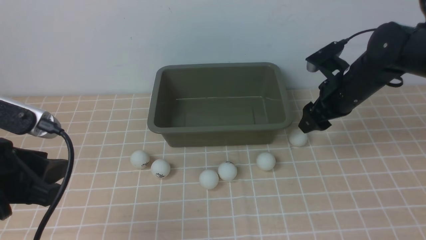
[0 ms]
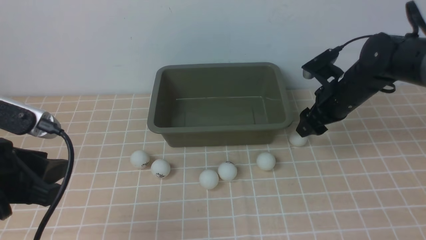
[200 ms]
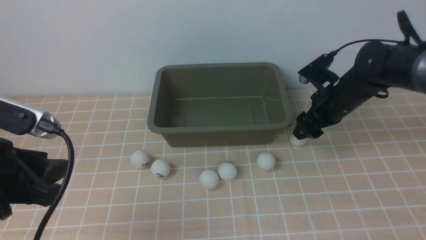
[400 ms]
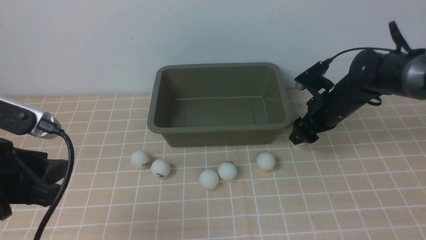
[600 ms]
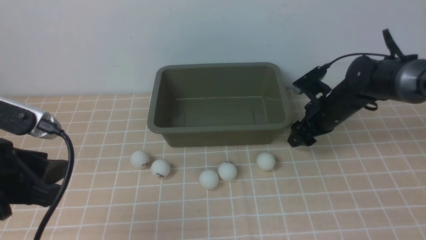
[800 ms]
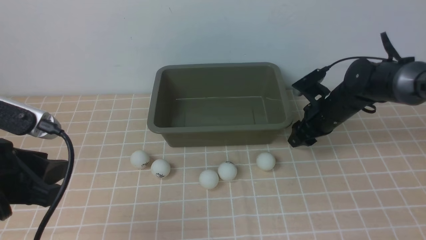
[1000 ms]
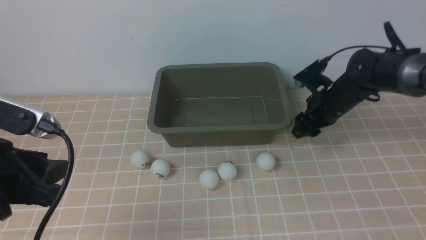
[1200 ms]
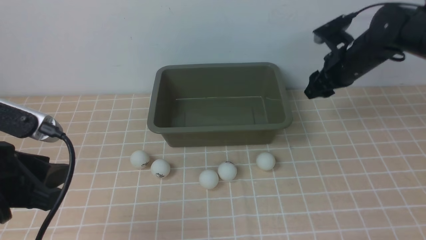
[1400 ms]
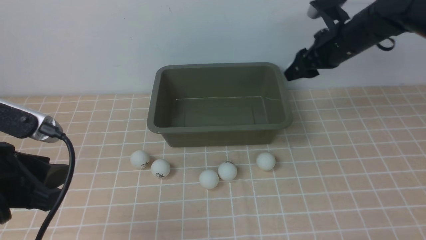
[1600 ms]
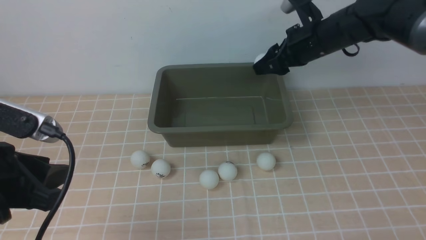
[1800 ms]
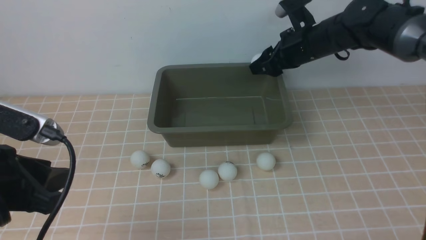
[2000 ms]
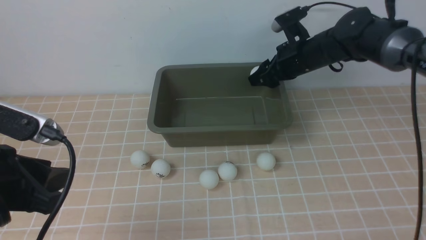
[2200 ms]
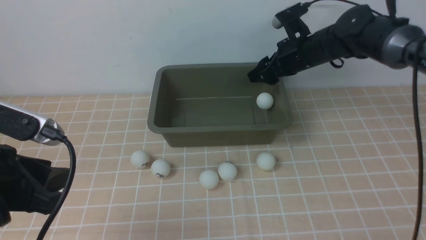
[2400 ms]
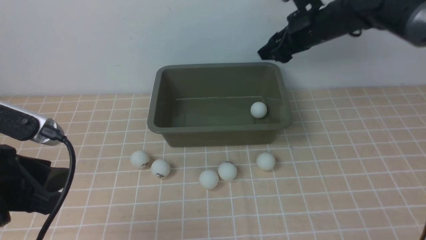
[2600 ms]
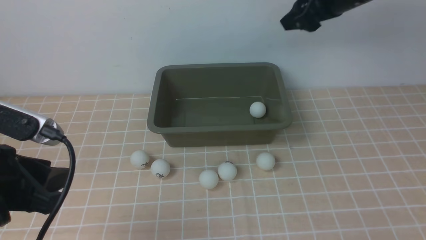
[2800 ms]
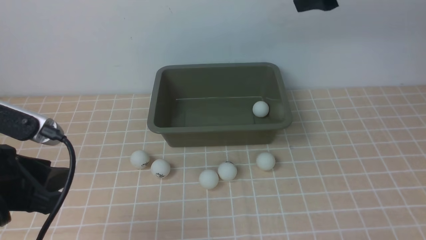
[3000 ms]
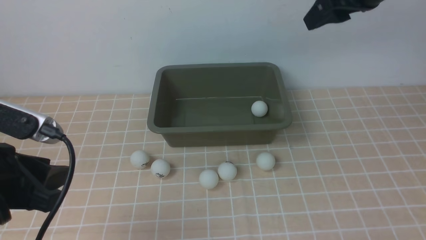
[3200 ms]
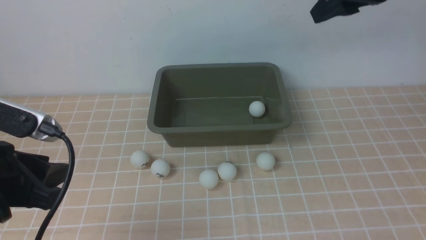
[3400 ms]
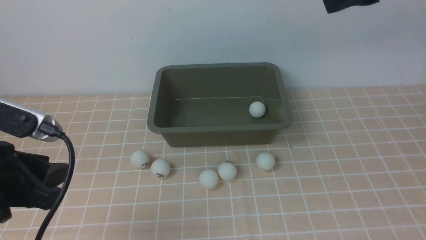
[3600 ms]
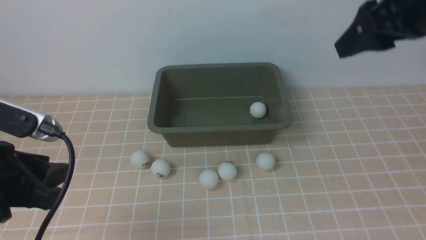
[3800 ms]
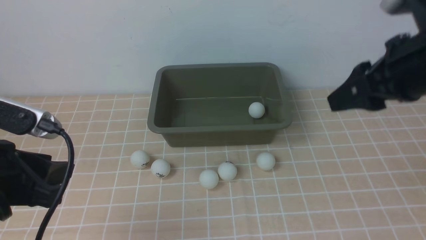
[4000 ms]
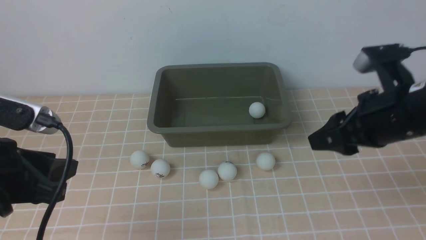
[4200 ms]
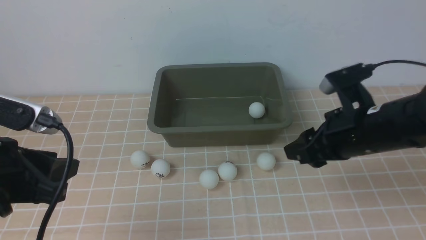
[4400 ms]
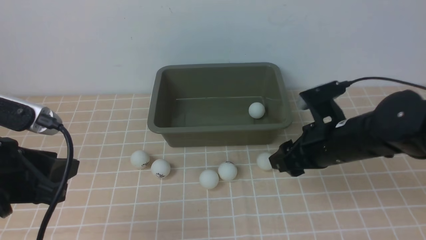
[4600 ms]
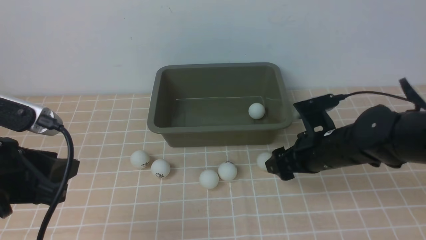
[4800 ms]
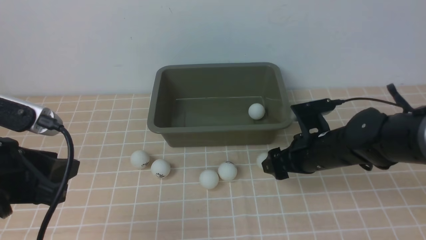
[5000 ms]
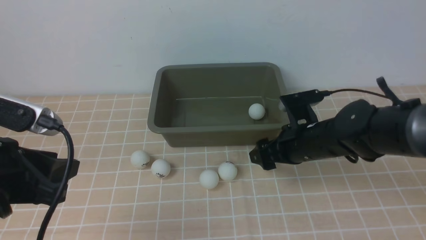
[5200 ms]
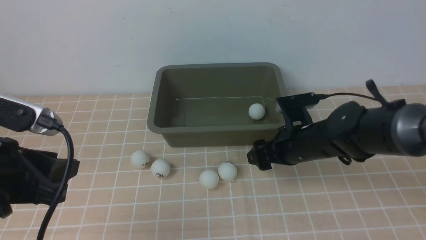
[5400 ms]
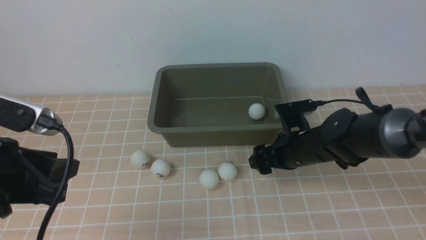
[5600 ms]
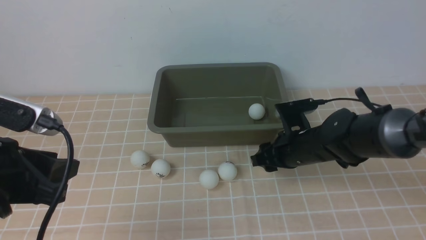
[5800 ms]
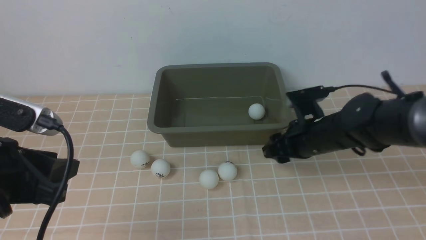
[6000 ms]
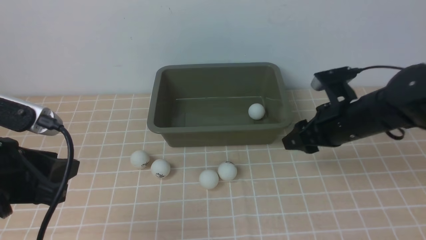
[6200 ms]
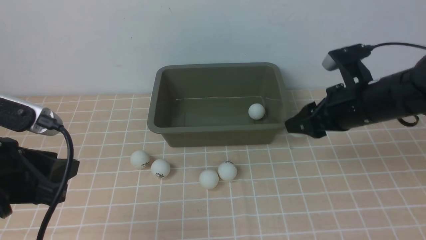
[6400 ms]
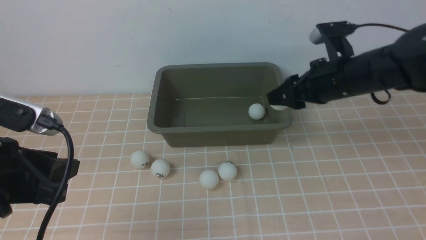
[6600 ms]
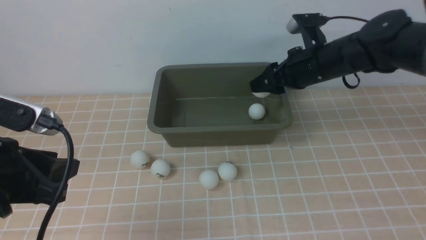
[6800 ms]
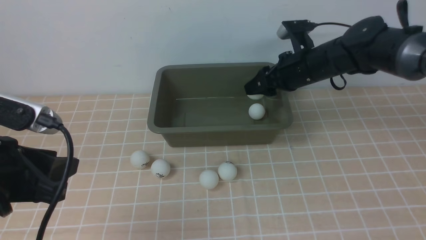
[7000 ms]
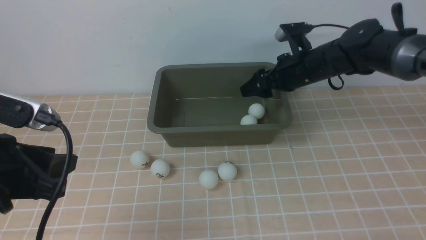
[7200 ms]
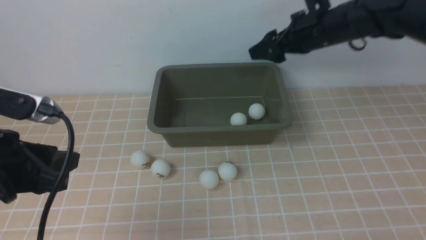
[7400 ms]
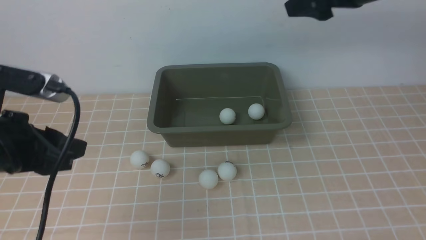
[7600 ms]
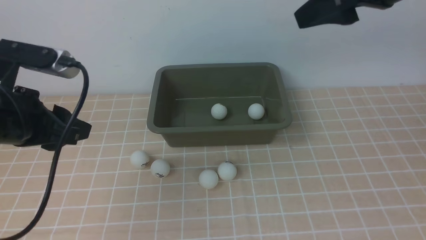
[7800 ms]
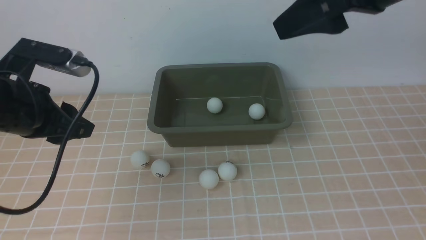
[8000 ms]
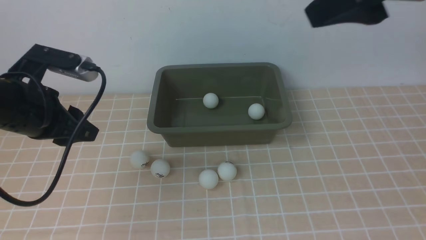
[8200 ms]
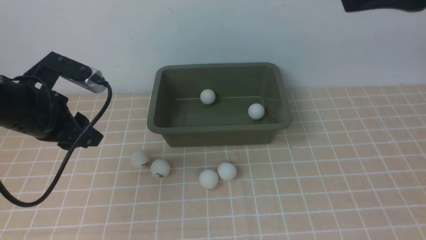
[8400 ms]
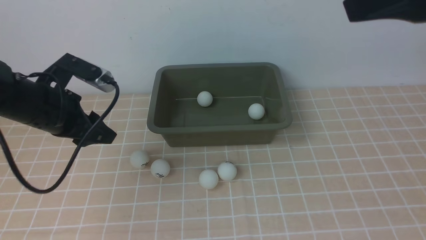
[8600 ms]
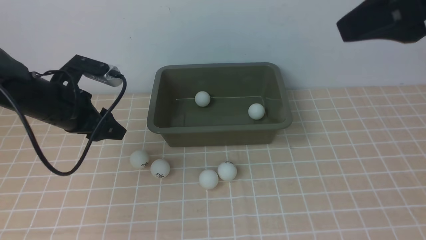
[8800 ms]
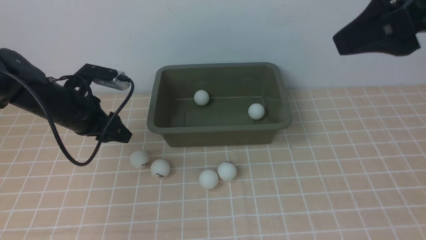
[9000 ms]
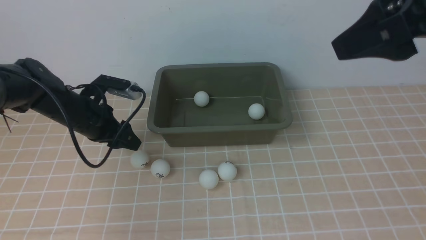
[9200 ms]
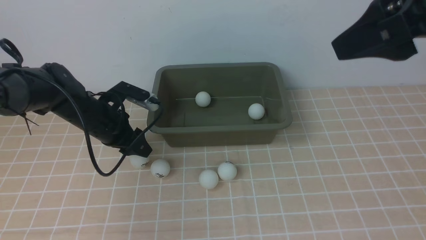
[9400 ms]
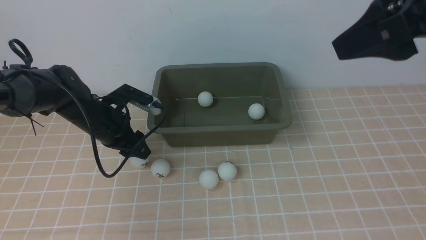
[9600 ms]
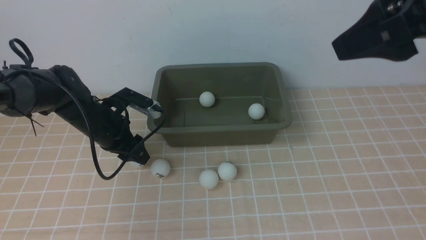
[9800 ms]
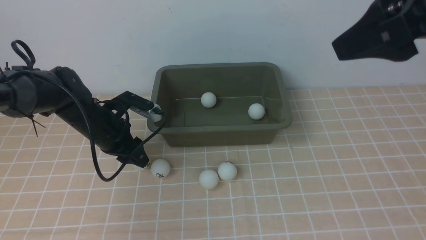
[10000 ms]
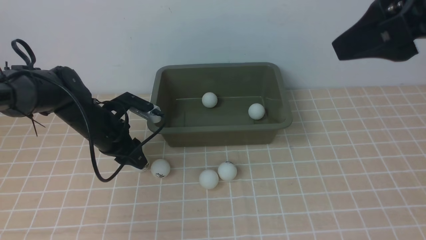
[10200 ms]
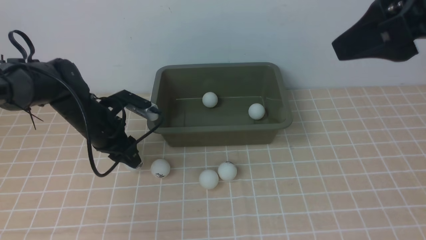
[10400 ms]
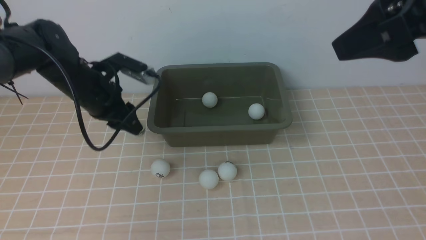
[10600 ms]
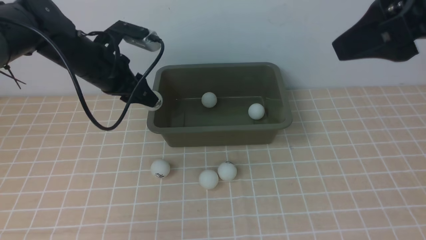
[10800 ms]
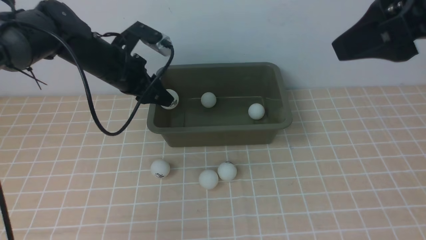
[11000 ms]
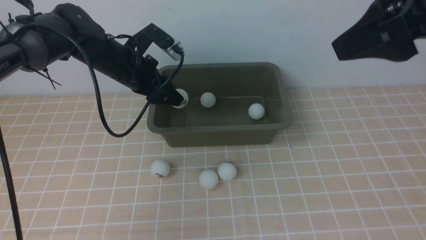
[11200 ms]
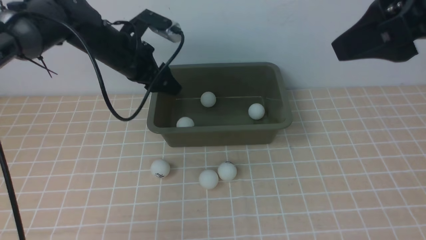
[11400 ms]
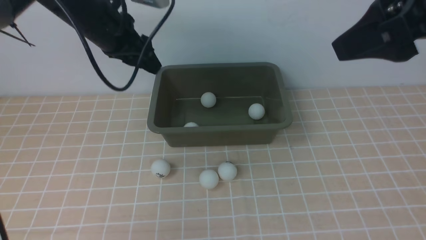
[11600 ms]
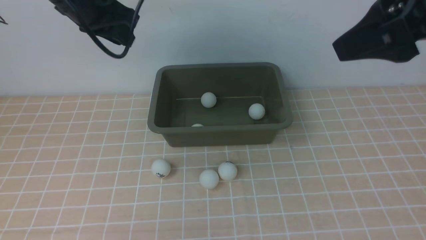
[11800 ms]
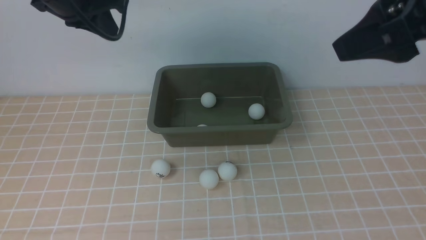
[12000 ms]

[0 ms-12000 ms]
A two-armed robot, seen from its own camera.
Step, 1600 ms to 2400 ms: use the right arm to put the table tennis ball into the box.
Step, 2800 ms to 6000 ms: use the right arm to clamp the table tennis ball closest to it.
Step, 6400 ms to 7400 ms: use the right arm to put the table tennis ball into the box.
Step, 7600 ms to 10600 ms: use the left arm to clamp the table tennis ball closest to it.
Step, 10800 ms to 11600 ms: use the left arm to put the table tennis ball into the box.
0 ms to 1600 ms: The right gripper goes approximately 5 cm forward, and closes its fingers.
1600 ms to 3000 ms: The right gripper heads upward and backward, covering approximately 15 cm.
3000 ms to 4400 ms: The right gripper travels downward and backward by some 20 cm.
4400 ms to 6000 ms: The right gripper is displaced downward and forward by some 10 cm, and opens, then closes again.
6000 ms to 7600 ms: The right gripper moves upward, about 20 cm, and opens its fingers.
7600 ms to 9000 ms: The right gripper goes some 15 cm backward and upward. The left gripper goes about 20 cm forward and downward.
9000 ms to 10400 ms: There are only small adjustments of the grippers.
10400 ms to 12000 ms: The left gripper travels upward by roughly 20 cm, and closes its fingers.

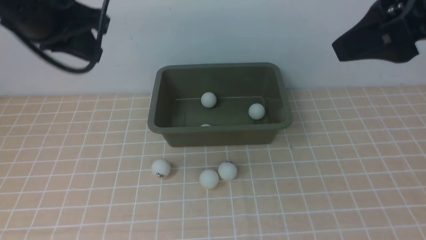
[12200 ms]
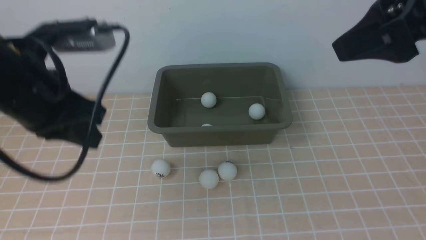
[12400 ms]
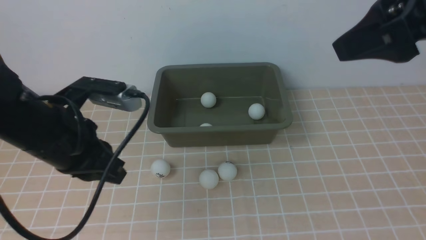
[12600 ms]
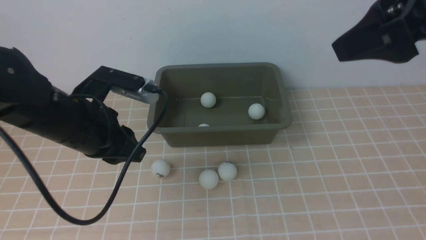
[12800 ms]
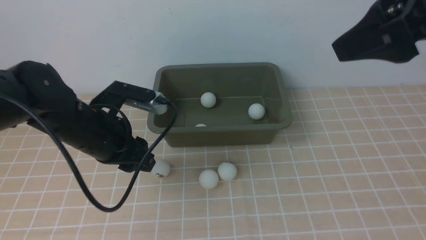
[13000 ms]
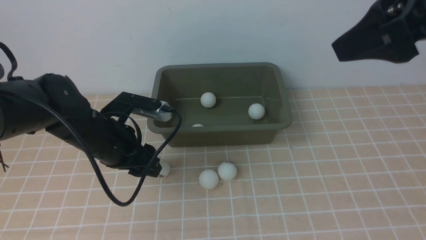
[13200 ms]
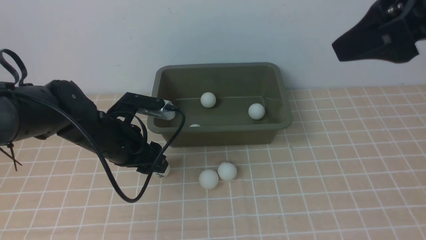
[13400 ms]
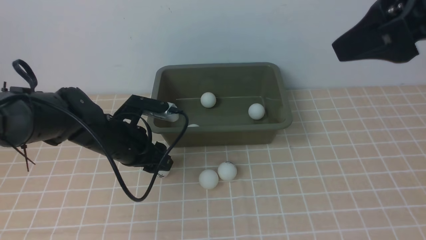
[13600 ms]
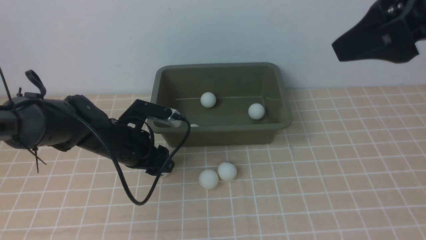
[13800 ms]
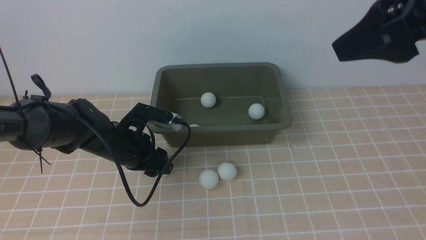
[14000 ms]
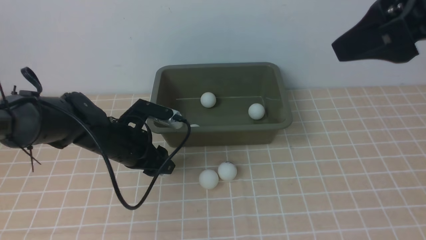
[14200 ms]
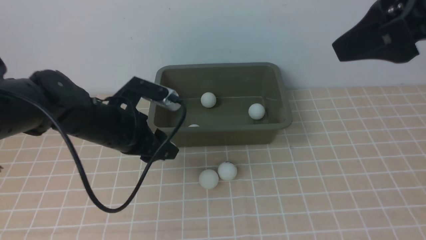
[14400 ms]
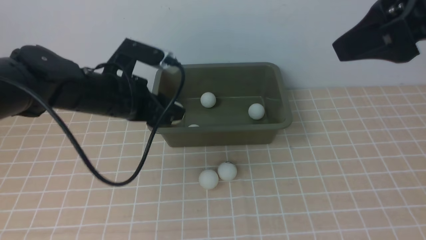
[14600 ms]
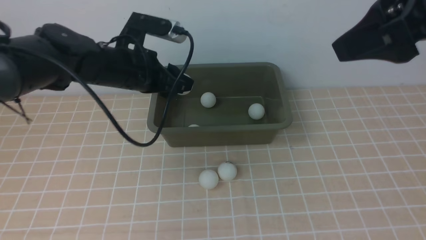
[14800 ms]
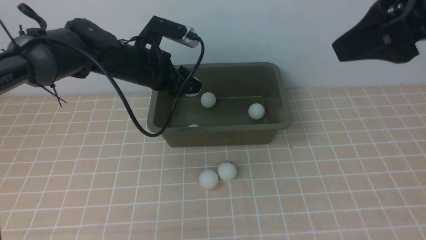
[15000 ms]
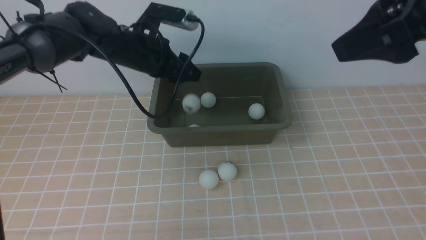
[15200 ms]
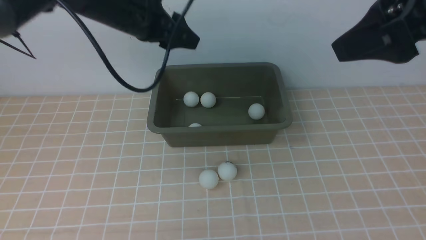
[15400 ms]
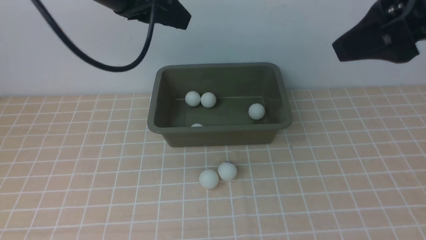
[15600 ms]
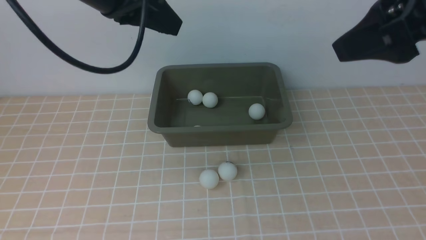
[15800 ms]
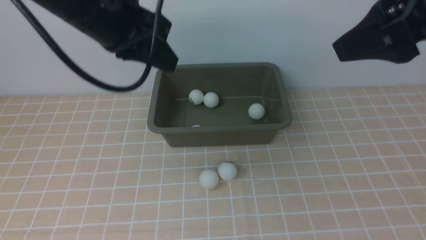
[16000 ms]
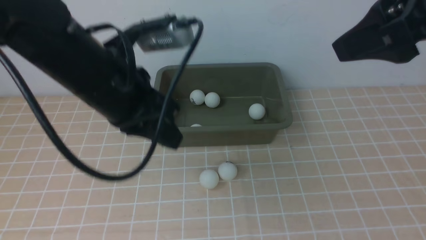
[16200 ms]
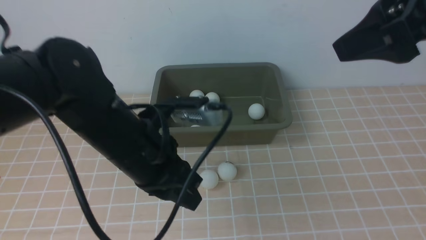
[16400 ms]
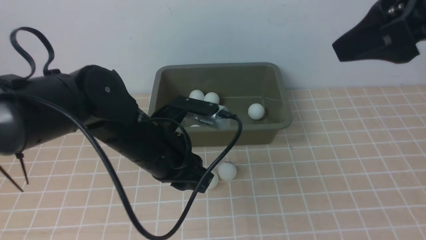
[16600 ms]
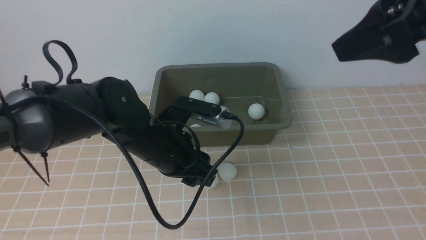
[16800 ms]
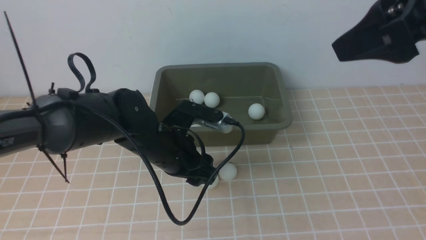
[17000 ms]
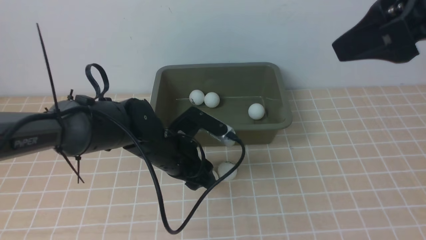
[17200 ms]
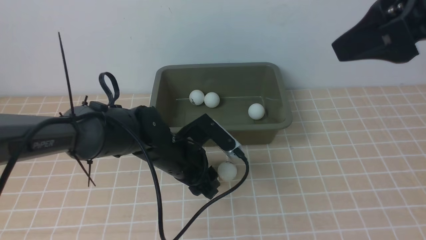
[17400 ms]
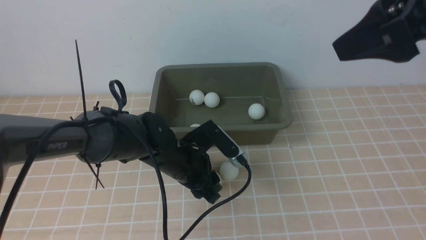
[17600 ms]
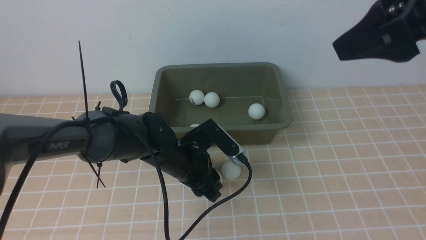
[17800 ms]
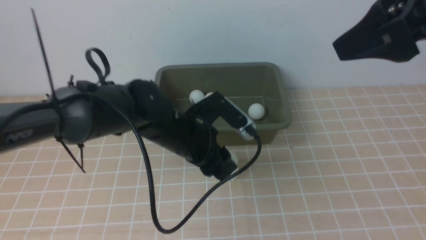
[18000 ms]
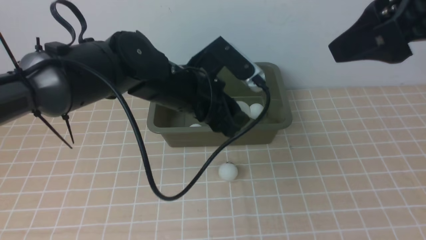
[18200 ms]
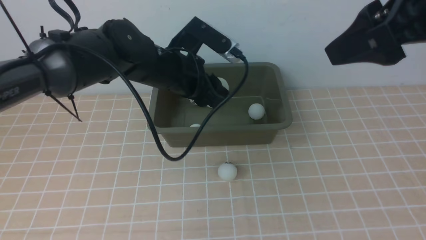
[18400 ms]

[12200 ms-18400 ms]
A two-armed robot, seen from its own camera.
Step, 12200 ms to 14400 ms: use the left arm to clamp the table tennis ball closest to it.
Step, 14600 ms to 15400 ms: use the left arm to put the table tennis ball into the box.
Step, 15600 ms to 18000 ms: use the left arm to clamp the table tennis ball closest to it.
12200 ms to 13800 ms: The left gripper heads downward, covering about 25 cm, and opens its fingers.
13800 ms to 15400 ms: The left gripper heads upward, covering some 20 cm.
15400 ms to 16800 ms: The left gripper moves downward and backward, some 20 cm, and closes, then reopens.
16800 ms to 18400 ms: The left gripper shifts roughly 10 cm forward.
